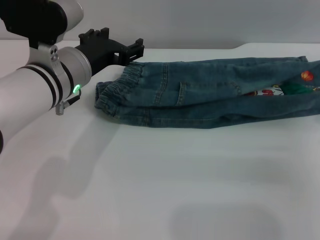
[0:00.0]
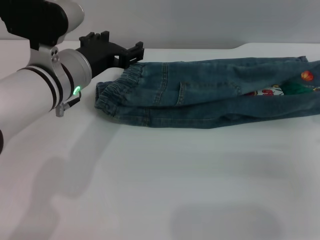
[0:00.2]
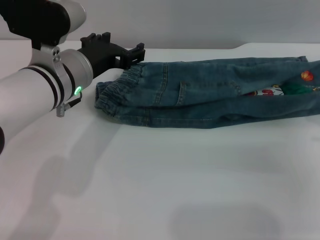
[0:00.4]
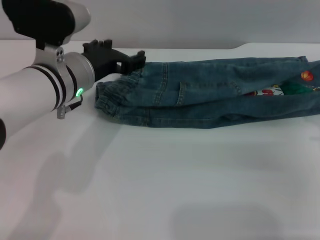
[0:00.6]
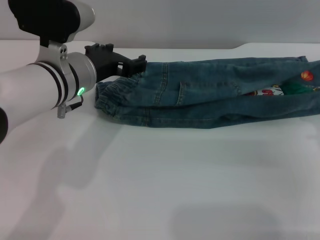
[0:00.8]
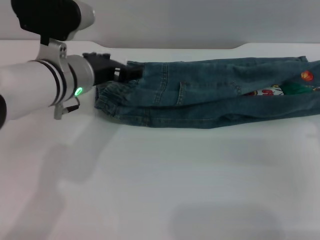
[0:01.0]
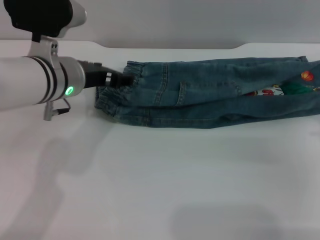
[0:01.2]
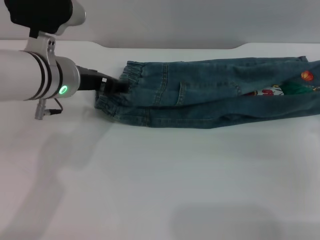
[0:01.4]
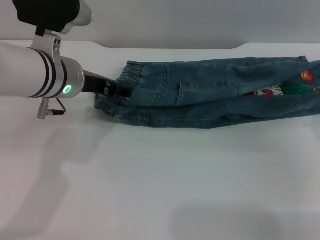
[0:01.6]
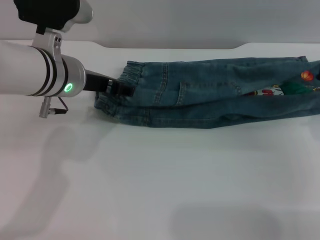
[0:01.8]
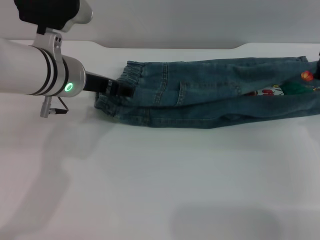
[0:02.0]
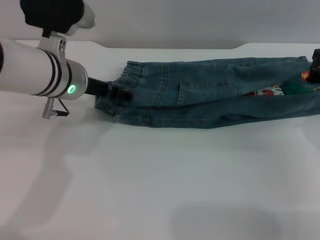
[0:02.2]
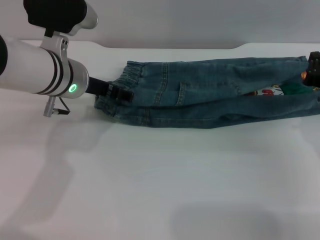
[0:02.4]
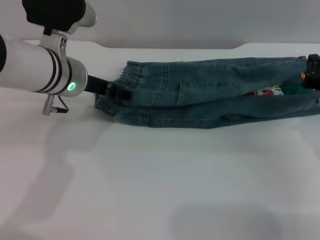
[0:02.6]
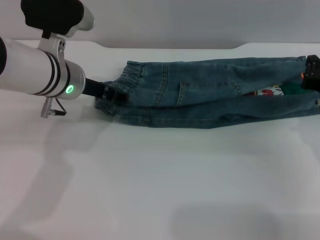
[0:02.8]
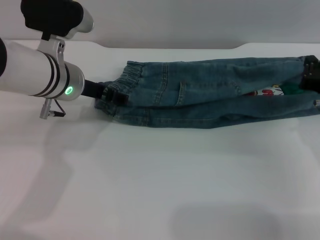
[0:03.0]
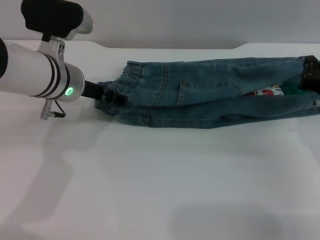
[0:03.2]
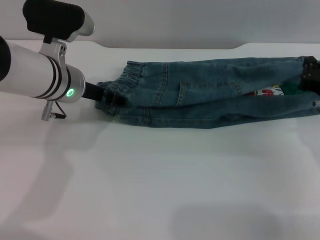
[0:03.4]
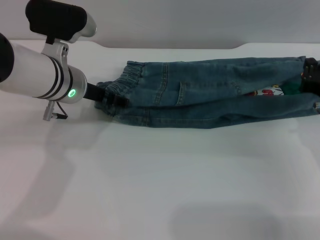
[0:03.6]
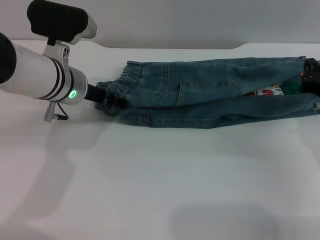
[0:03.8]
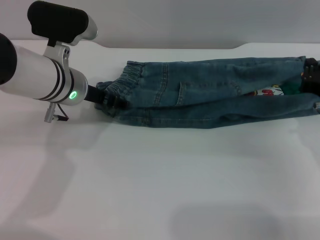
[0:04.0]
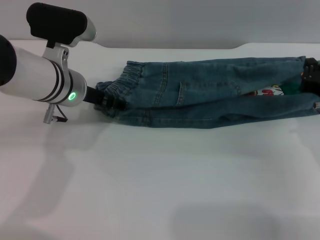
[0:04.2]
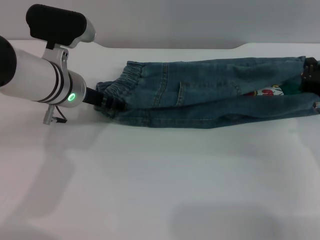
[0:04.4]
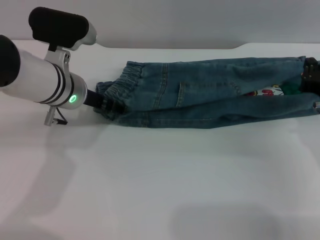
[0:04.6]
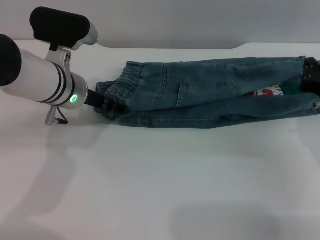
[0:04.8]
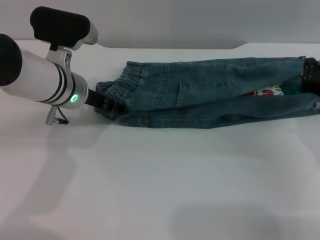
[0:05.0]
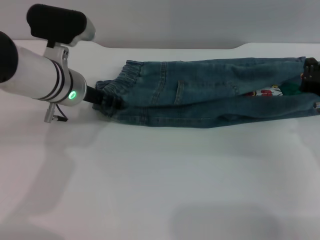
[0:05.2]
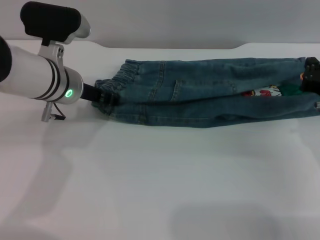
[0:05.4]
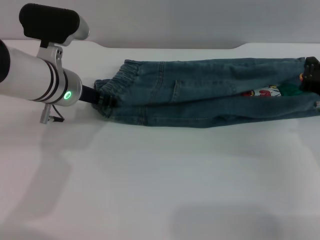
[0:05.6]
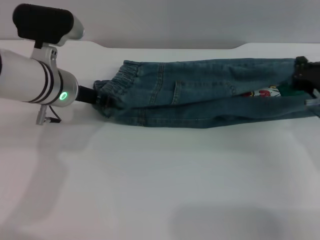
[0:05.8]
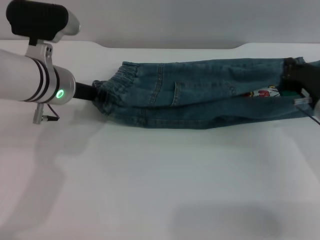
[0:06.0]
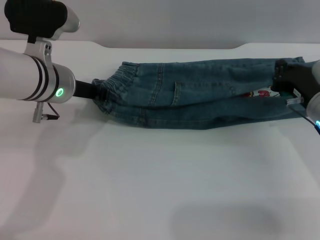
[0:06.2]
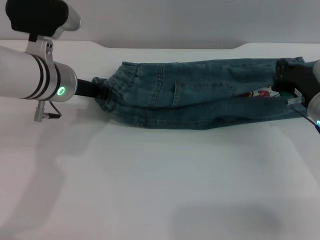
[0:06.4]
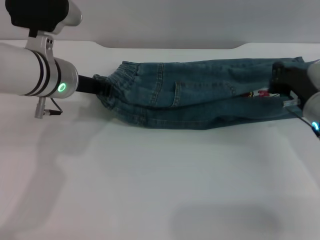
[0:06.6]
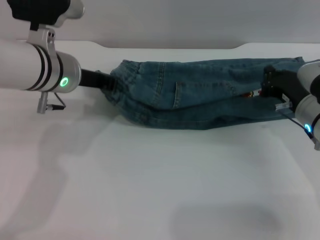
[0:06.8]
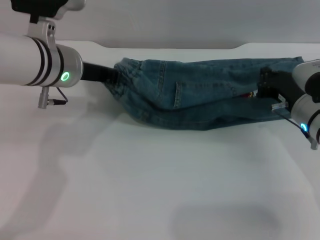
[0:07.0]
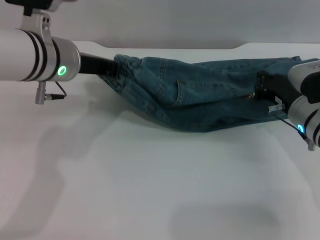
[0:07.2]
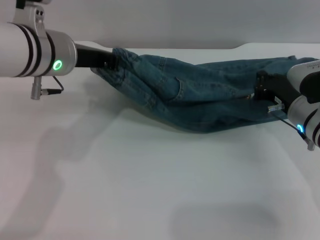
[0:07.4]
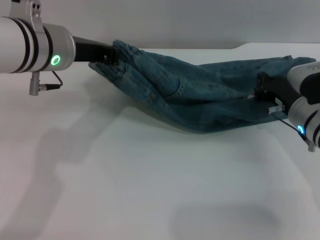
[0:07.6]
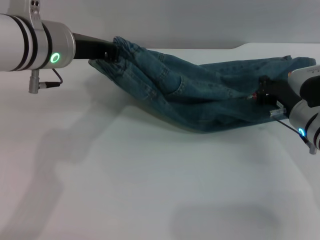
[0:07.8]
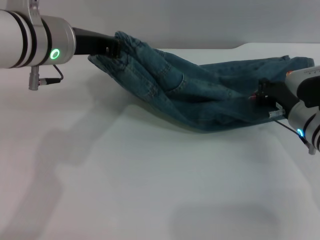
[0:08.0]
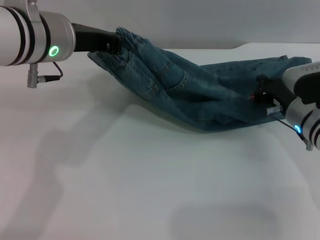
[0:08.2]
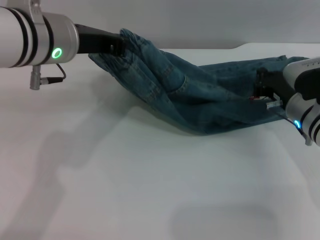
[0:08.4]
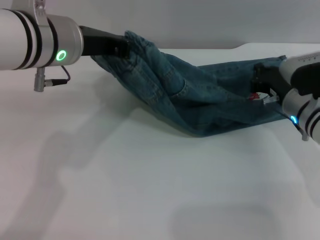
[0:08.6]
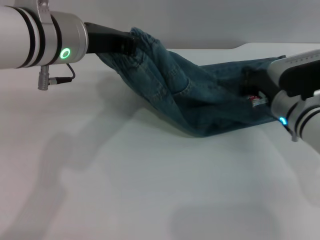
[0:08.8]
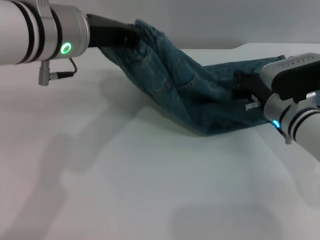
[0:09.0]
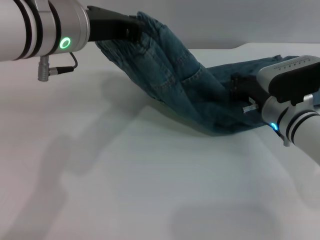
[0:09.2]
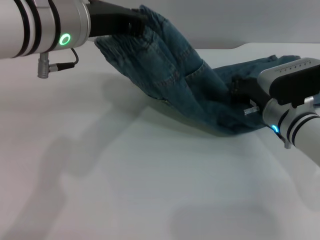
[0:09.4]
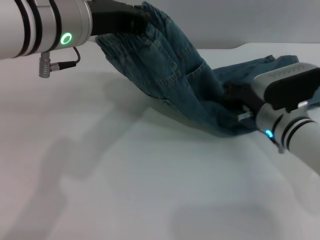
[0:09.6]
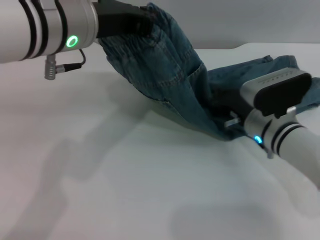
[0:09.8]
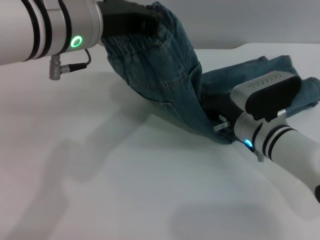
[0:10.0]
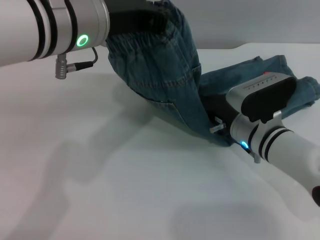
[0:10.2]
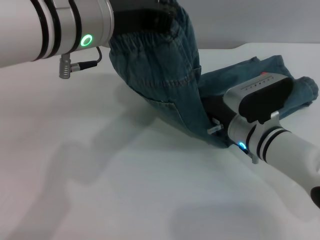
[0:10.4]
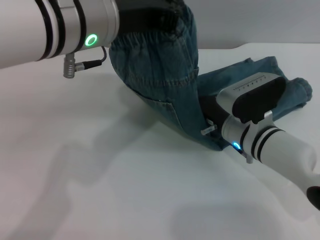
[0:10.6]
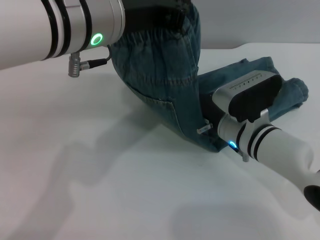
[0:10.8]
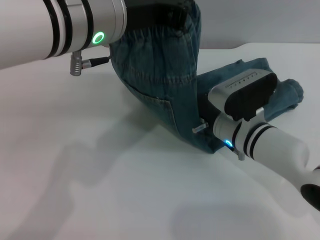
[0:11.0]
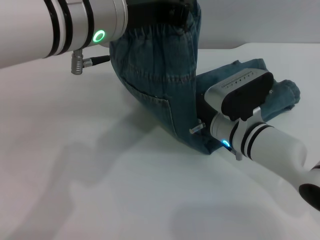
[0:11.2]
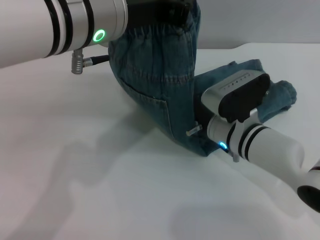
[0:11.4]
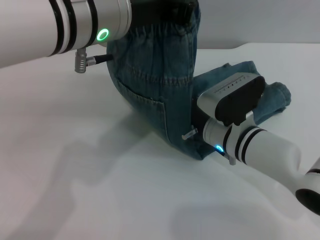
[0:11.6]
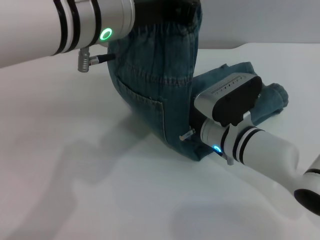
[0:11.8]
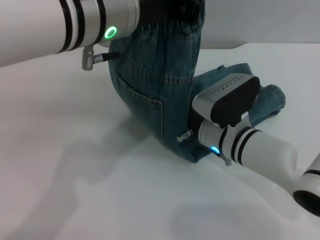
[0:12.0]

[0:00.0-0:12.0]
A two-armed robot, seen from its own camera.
0.0 to 1.6 s: The right gripper changes place by approximately 5 cm, and closes.
1.6 to 4.4 s: The grippers stay close to where they were, moving slightly.
4.4 to 6.0 s: The left gripper closes.
6.0 to 7.6 s: The left gripper is displaced upward by about 5 cm.
7.6 to 9.0 s: The grippers stay close to where they were, moving slightly.
9.0 to 10.4 s: The right gripper travels to the left by about 5 cm.

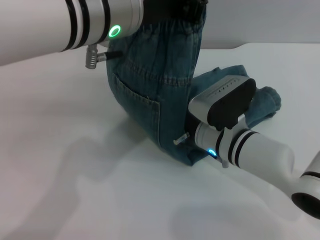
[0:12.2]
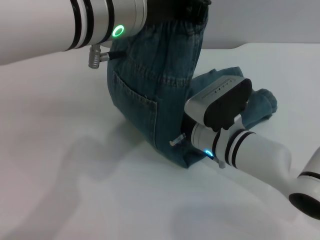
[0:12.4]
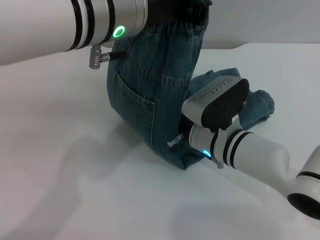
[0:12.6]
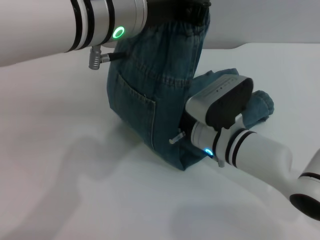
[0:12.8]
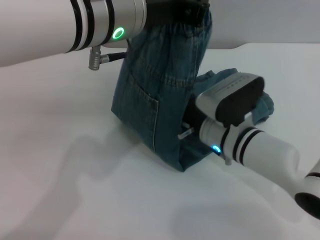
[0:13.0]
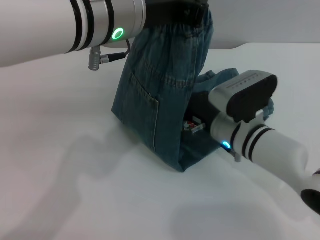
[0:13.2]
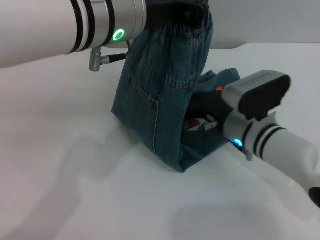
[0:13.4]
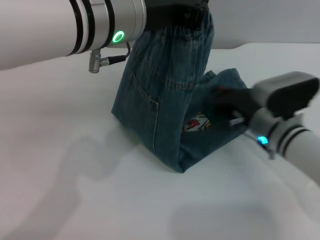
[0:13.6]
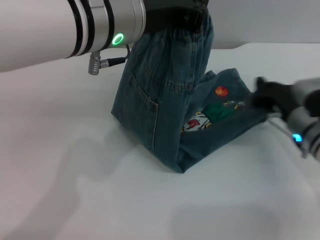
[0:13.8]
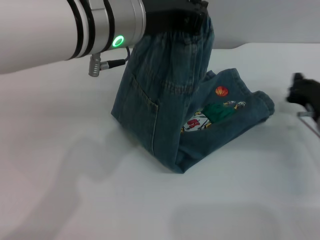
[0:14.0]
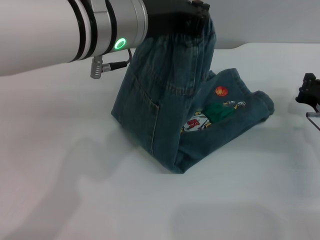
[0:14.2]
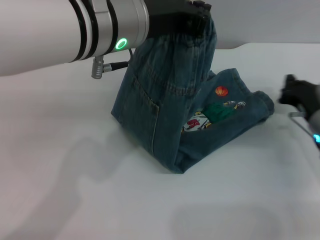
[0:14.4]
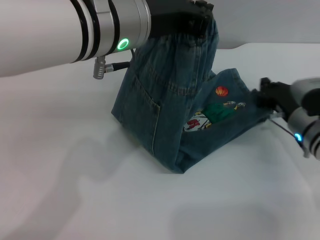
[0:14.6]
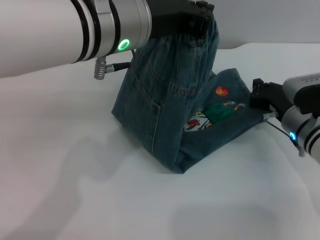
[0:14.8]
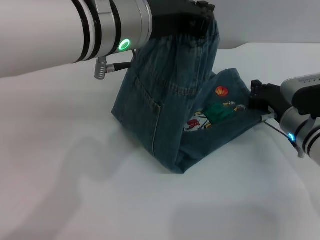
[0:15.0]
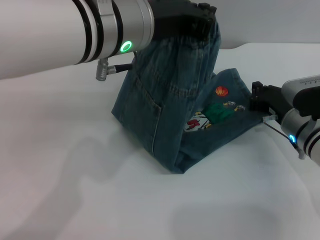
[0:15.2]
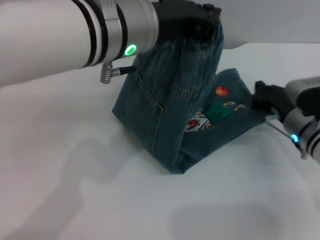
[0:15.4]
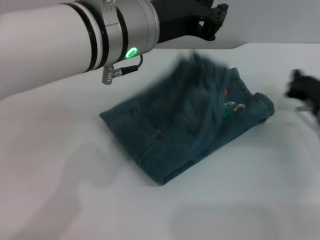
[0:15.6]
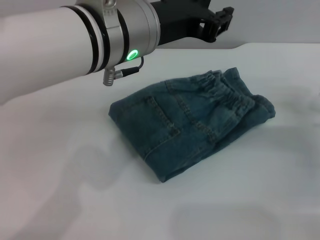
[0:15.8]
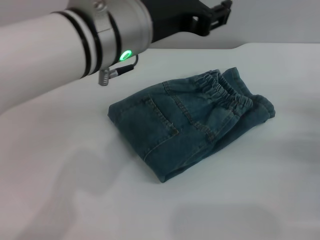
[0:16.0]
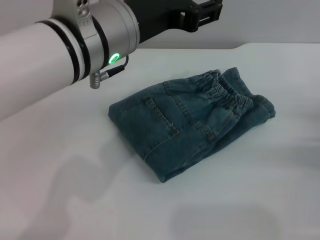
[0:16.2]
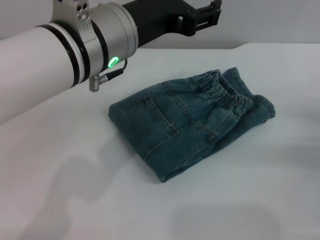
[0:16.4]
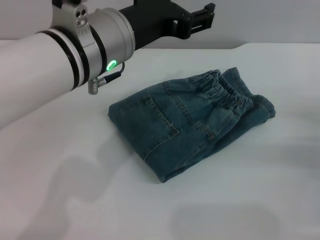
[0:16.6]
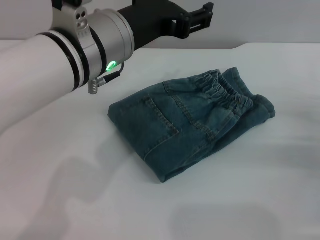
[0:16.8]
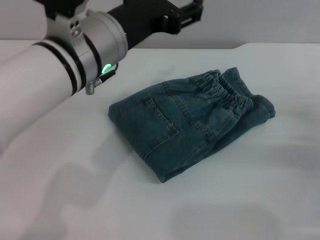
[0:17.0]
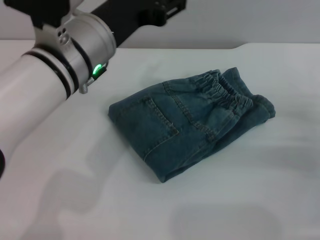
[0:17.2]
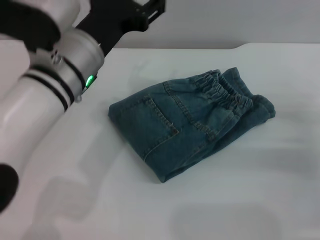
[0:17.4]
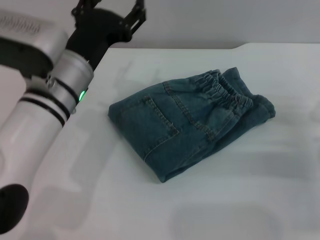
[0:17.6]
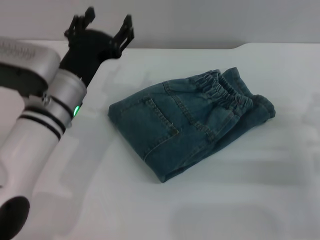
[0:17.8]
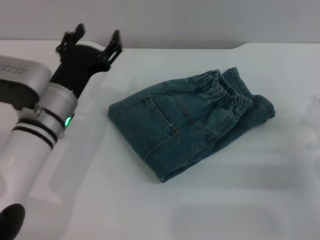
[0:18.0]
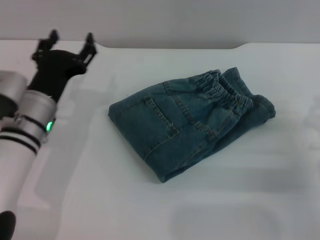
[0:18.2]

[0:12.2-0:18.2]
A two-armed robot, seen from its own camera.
Step, 12.2 to 15.8 s: Fold the pants from left to right with the left gripper.
12.2 to 13.8 s: The right gripper heads to the right, covering some 15 cm.
13.8 to 15.2 s: There are only small adjustments of the grippers.
15.2 to 16.6 s: The right gripper shifts some 10 cm to the right and backward. Meanwhile the left gripper opens.
16.6 to 18.2 s: The right gripper ends up approximately 5 cm from where it was. Meanwhile the left gripper is displaced downward and to the left by approximately 20 cm.

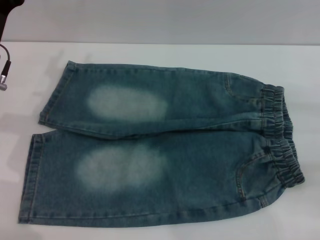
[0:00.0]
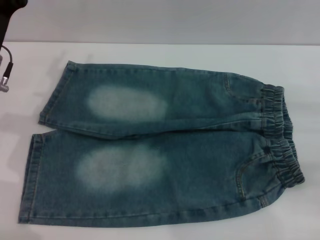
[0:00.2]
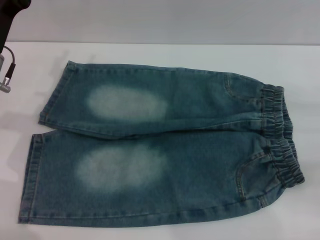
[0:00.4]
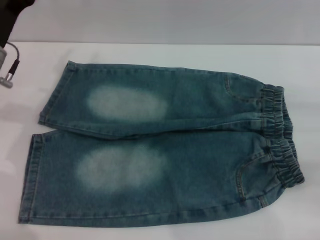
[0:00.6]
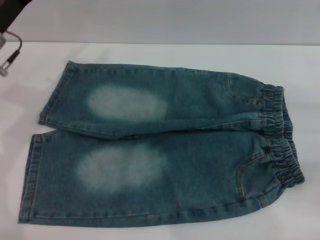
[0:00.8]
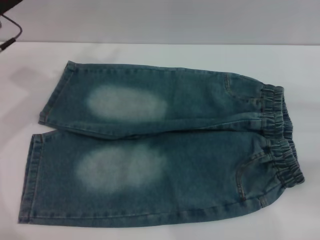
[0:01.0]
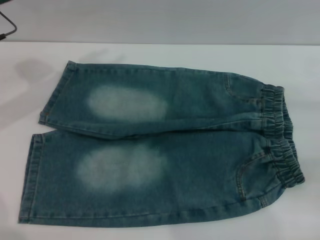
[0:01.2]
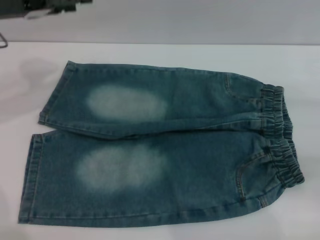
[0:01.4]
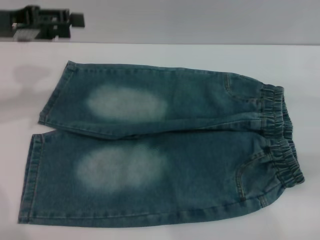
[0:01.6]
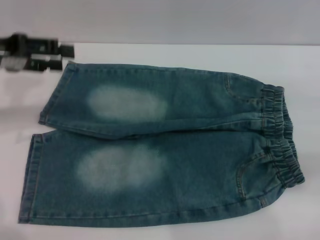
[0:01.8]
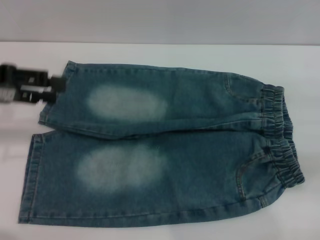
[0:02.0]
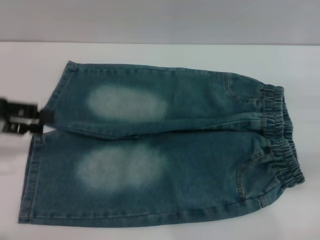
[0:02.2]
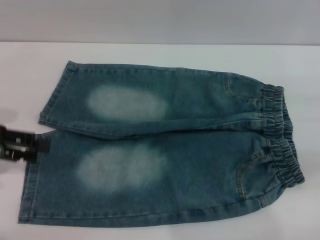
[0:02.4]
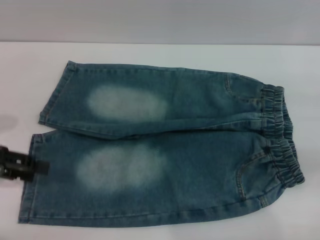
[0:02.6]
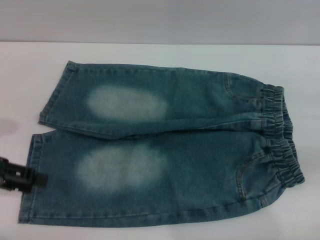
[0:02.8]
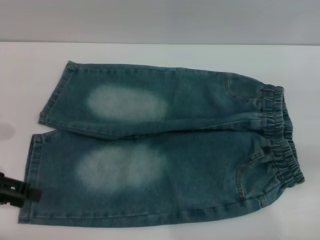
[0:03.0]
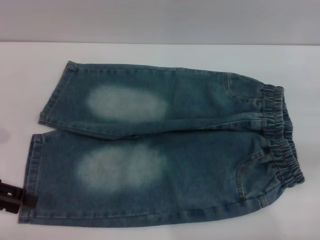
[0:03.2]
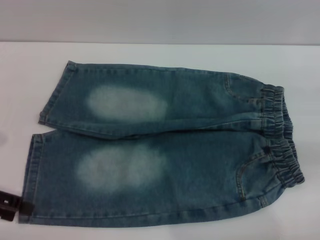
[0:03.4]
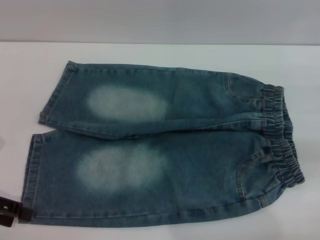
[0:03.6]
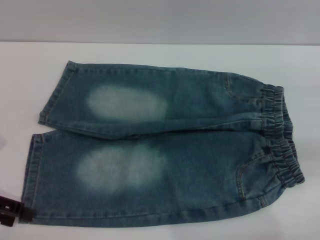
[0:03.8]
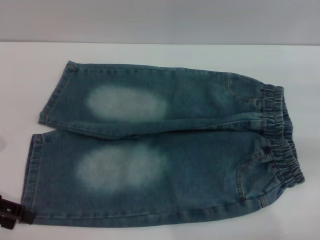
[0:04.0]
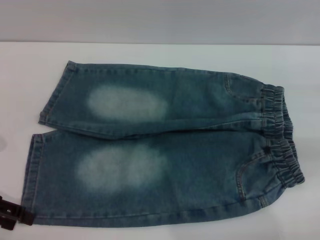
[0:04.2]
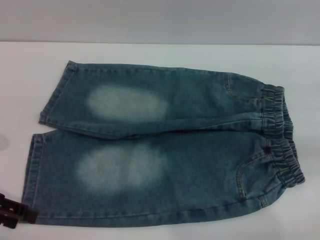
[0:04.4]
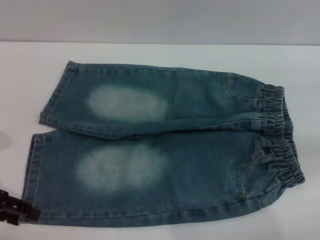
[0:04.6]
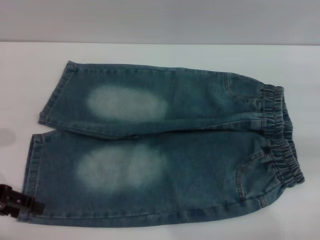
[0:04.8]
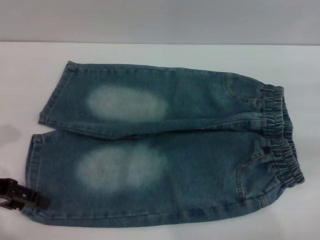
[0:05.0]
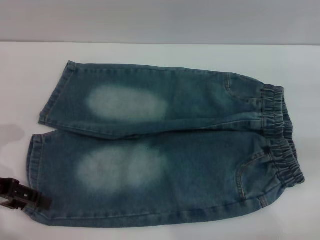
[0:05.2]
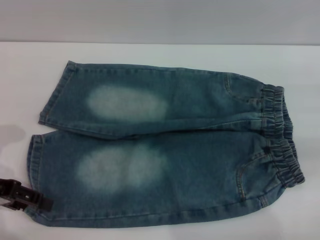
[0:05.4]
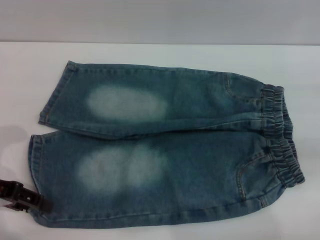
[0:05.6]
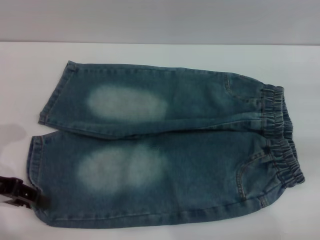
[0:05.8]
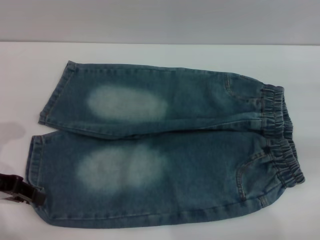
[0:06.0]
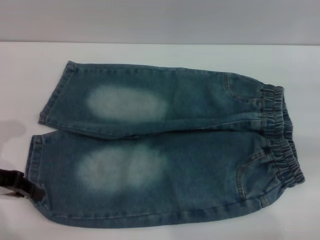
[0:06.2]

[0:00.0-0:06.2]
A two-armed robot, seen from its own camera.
0.0 to 1.6 s: The left gripper travels upward by roughly 10 cm.
1.6 to 3.2 s: The left gripper goes about 15 cm backward, downward and to the left.
3.2 to 4.6 s: The grippers move only a little.
4.6 to 6.2 s: The left gripper closes up.
